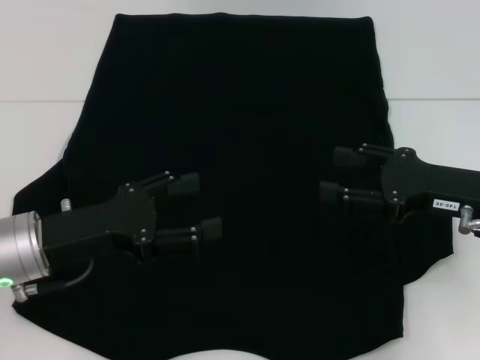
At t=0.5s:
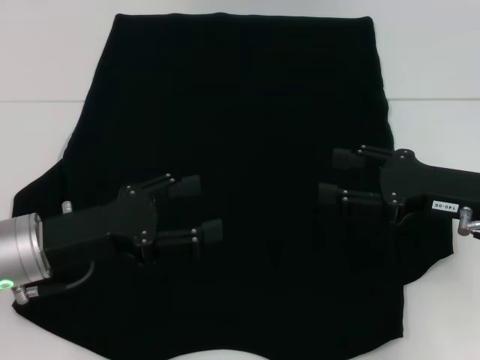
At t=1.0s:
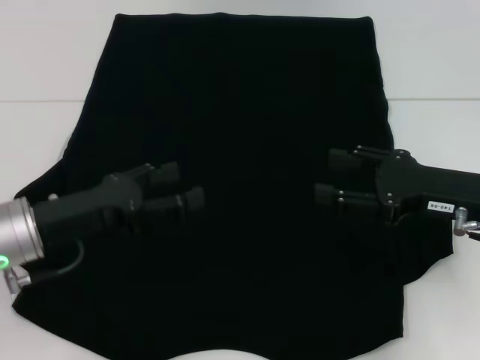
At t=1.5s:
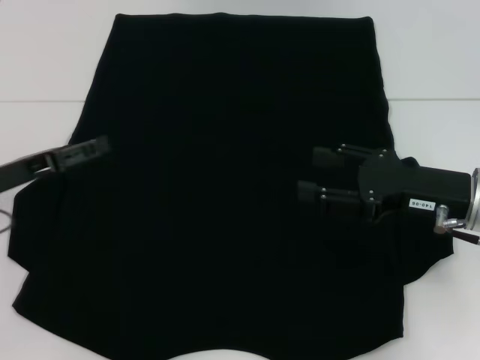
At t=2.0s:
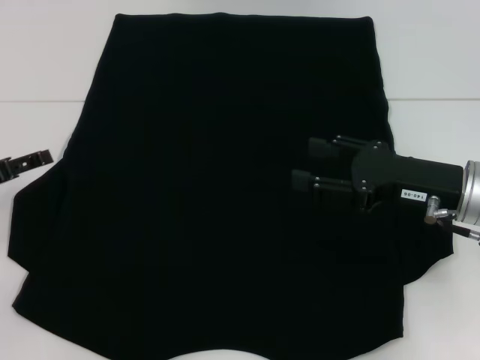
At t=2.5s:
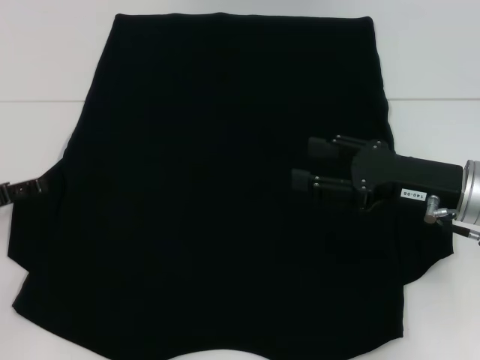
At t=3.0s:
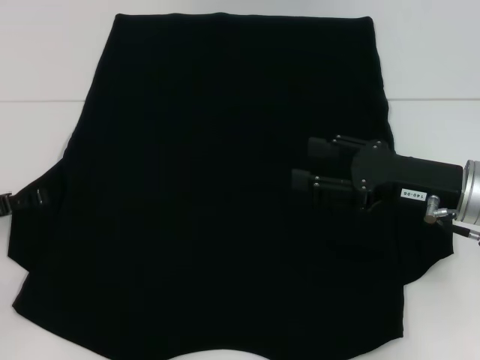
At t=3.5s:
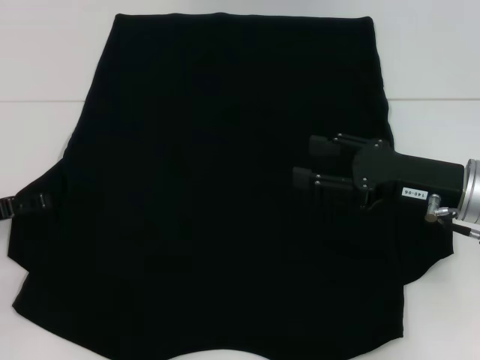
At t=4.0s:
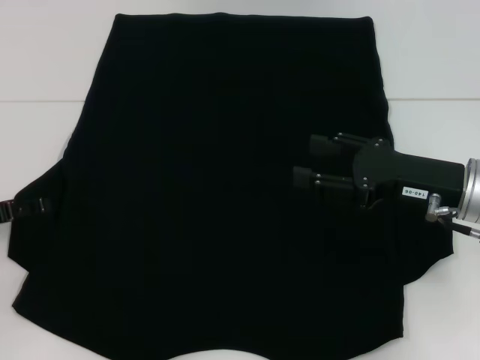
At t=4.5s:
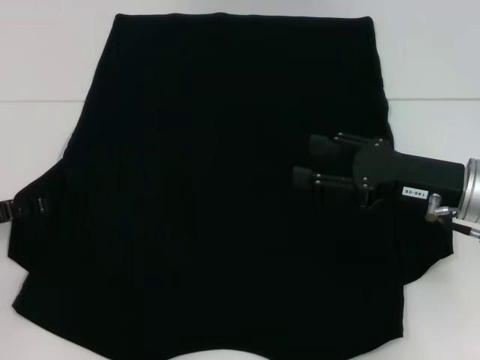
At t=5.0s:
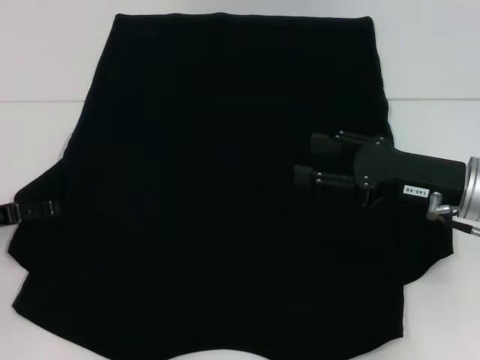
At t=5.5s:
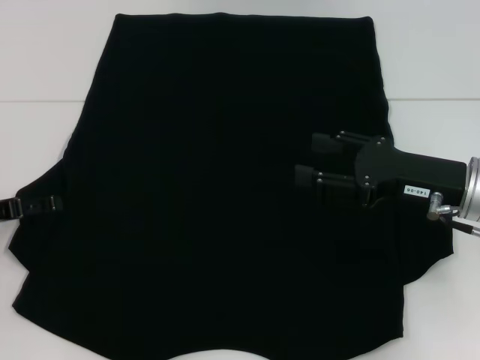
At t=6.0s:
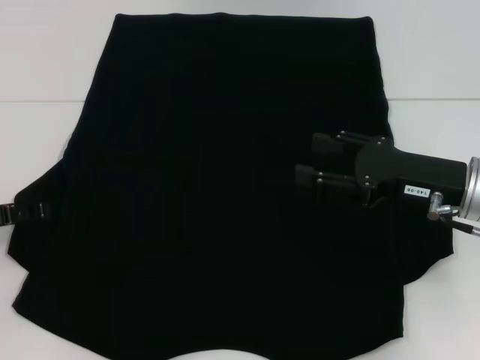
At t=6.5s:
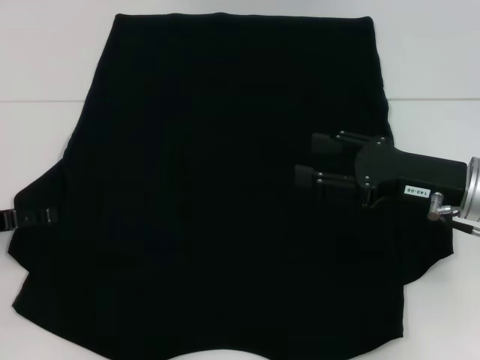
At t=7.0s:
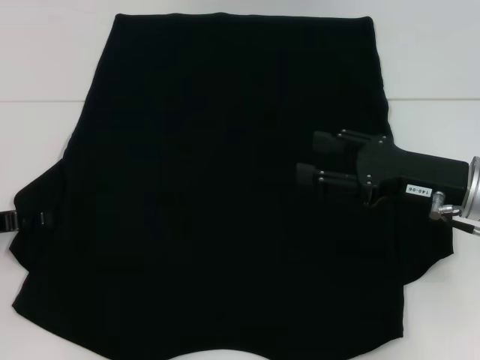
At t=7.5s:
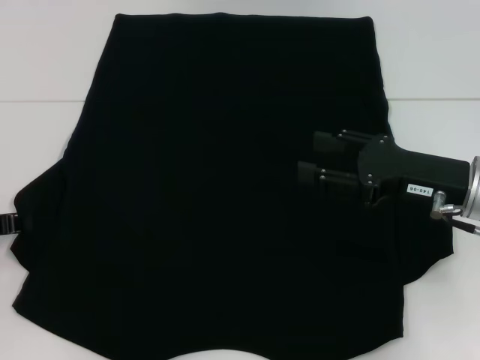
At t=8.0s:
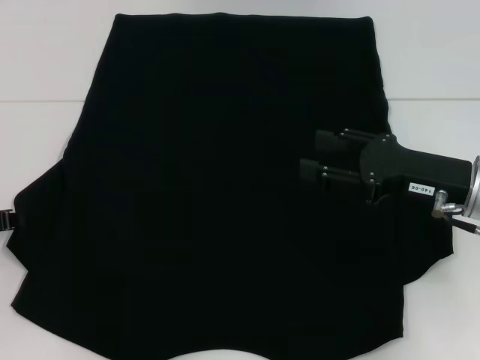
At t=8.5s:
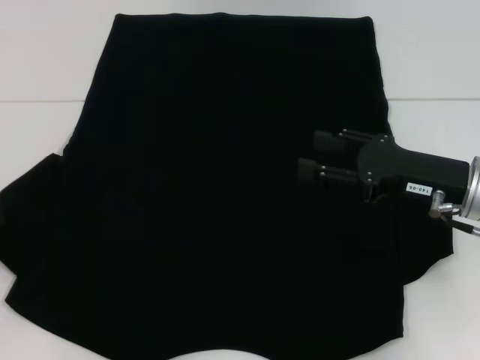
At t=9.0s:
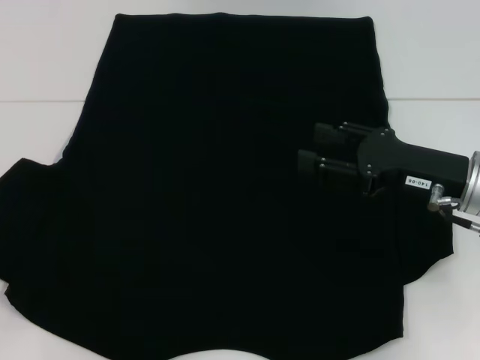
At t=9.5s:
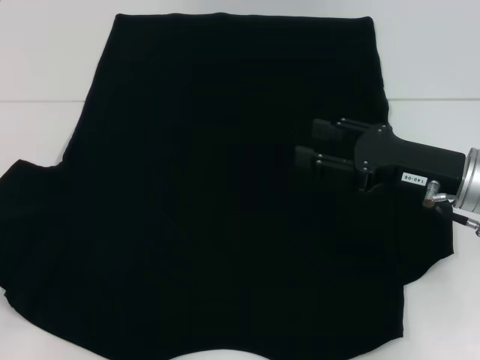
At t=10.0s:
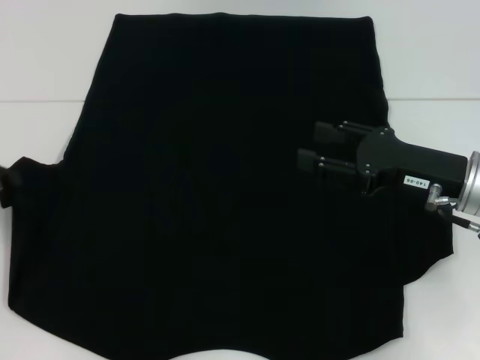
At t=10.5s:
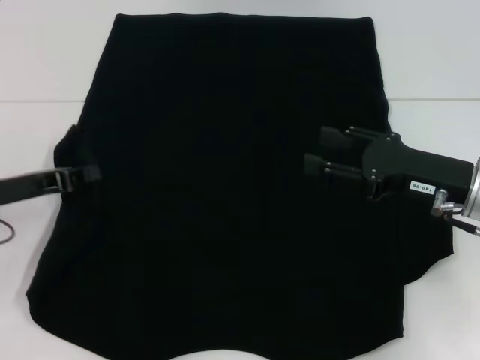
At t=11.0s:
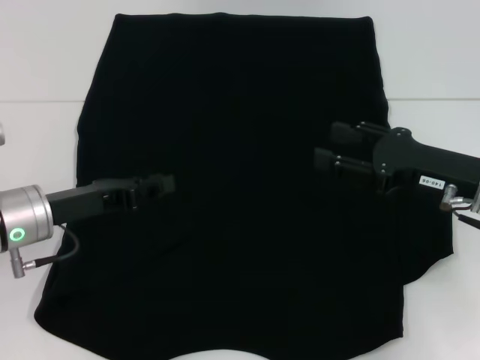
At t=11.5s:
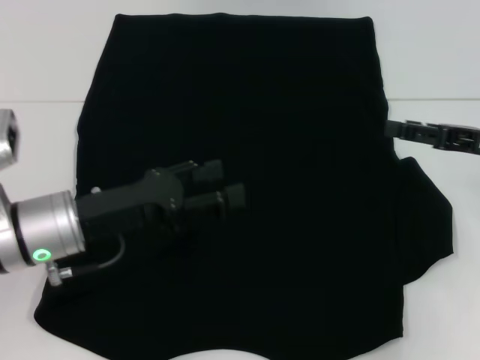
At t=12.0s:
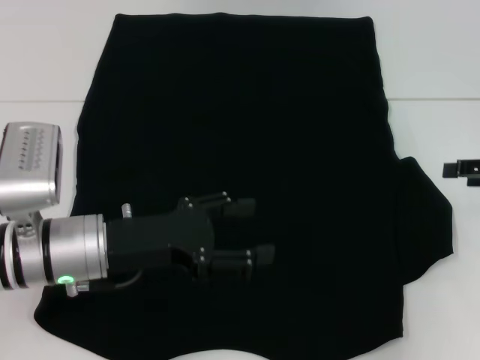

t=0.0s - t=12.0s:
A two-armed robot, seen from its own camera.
t=0.0s - t=2.0s: The left gripper is displaced to the left by about 10 cm.
t=2.0s - t=4.0s: The grippers stay close to where they were, moving slightly.
t=4.0s - t=6.0s: Both grippers stay put.
t=8.0s - t=10.0s: The grippers move only a little.
t=10.0s - t=12.0s: The grippers both shift to the right by about 15 cm. The left gripper opens up.

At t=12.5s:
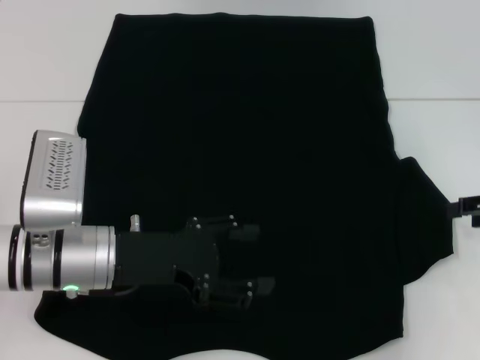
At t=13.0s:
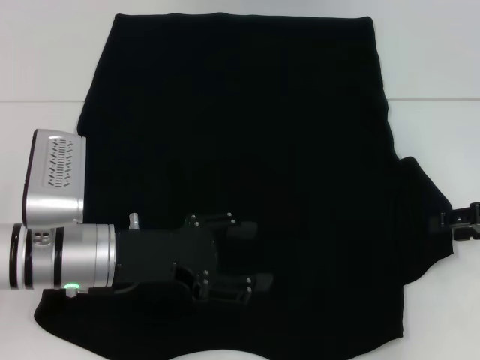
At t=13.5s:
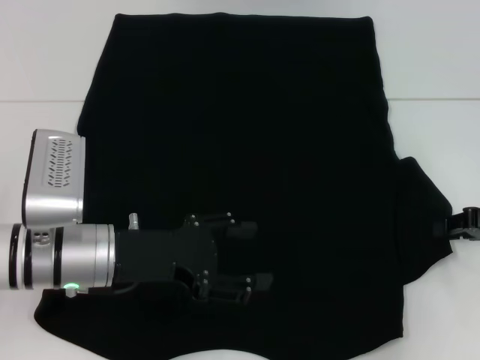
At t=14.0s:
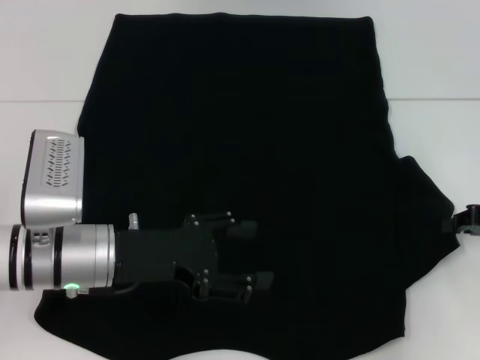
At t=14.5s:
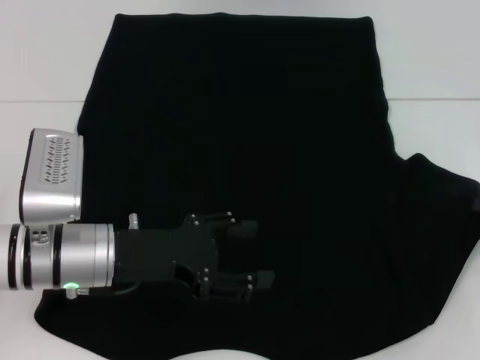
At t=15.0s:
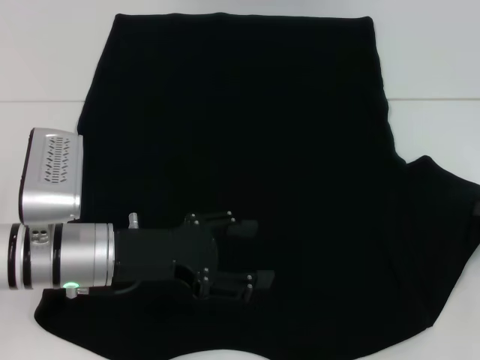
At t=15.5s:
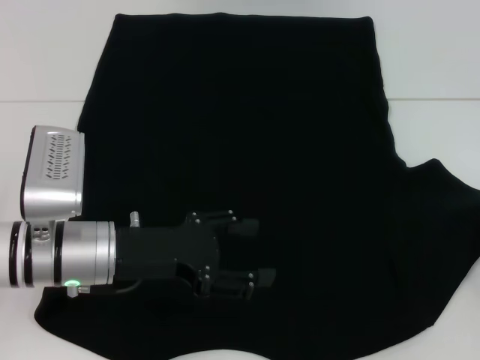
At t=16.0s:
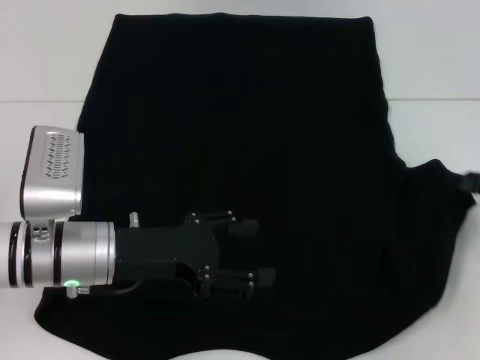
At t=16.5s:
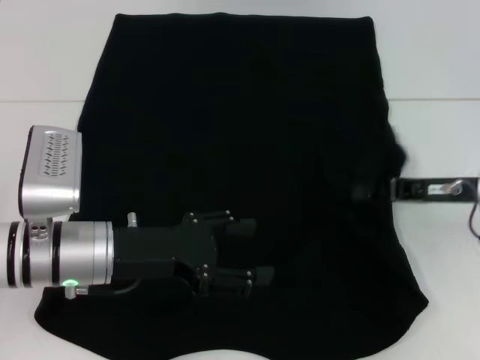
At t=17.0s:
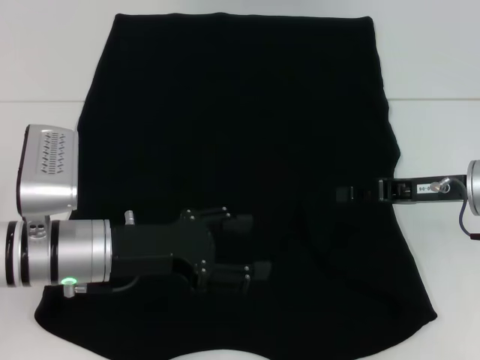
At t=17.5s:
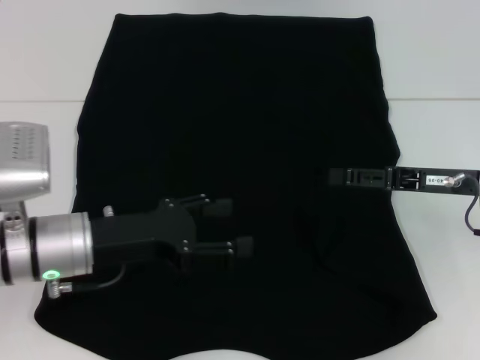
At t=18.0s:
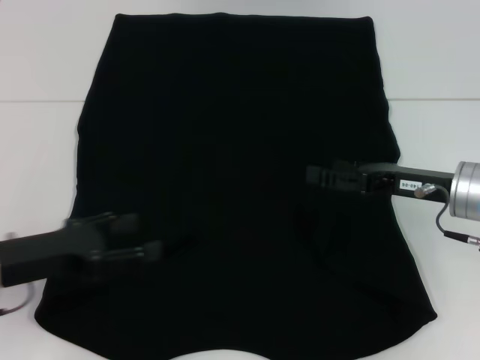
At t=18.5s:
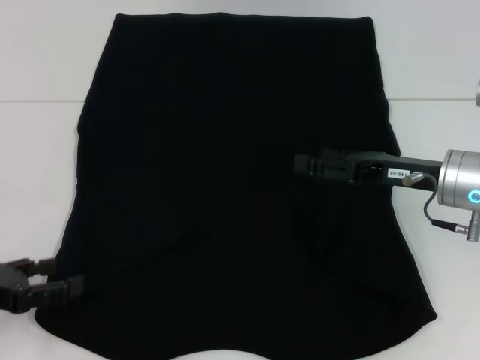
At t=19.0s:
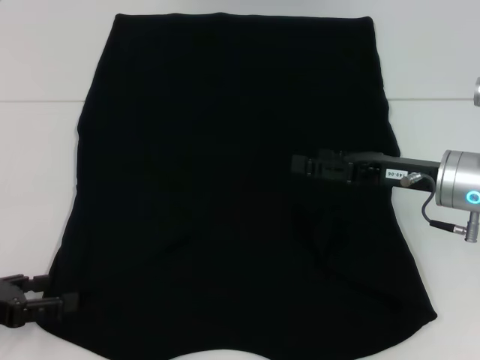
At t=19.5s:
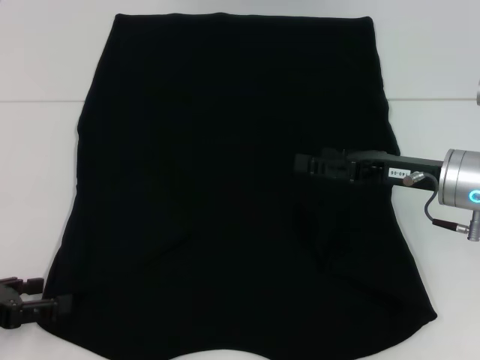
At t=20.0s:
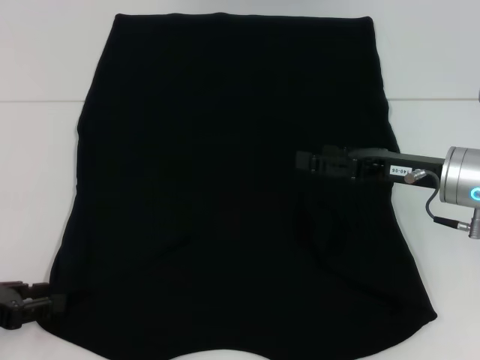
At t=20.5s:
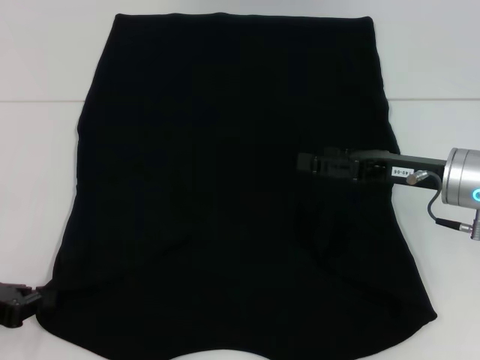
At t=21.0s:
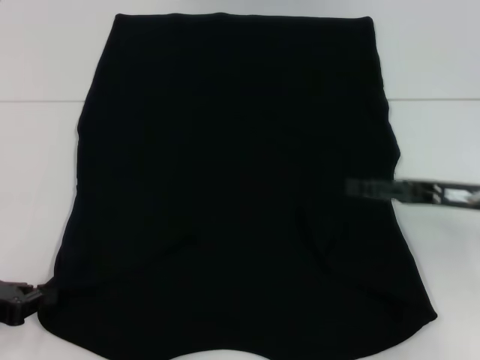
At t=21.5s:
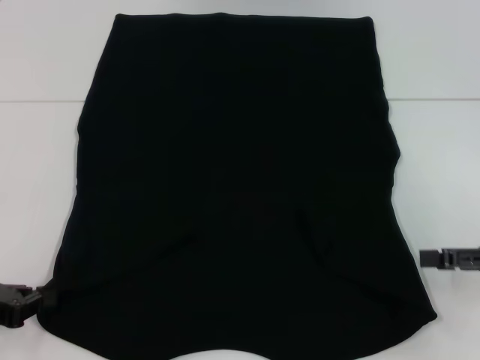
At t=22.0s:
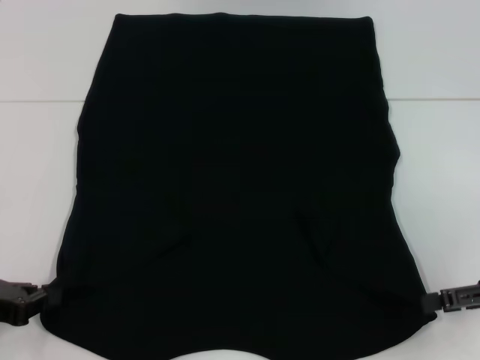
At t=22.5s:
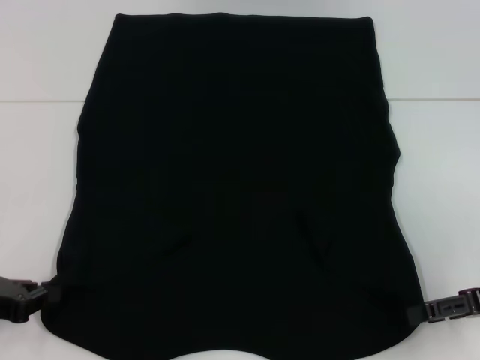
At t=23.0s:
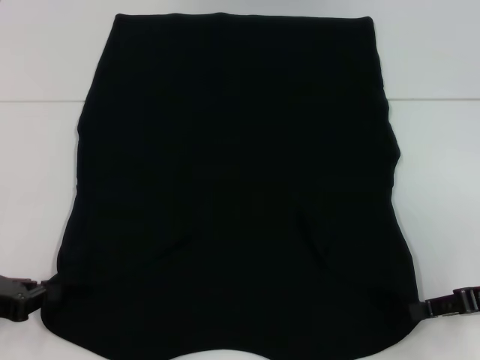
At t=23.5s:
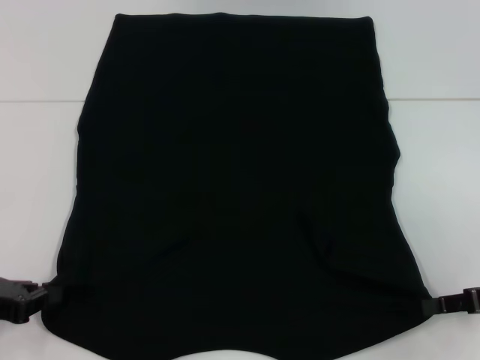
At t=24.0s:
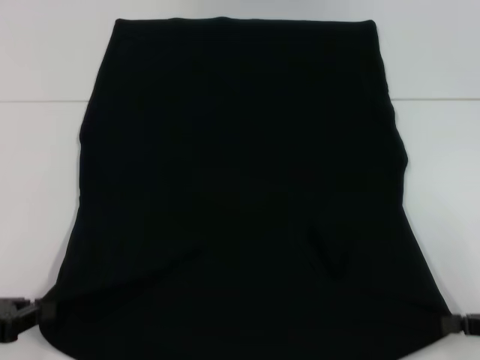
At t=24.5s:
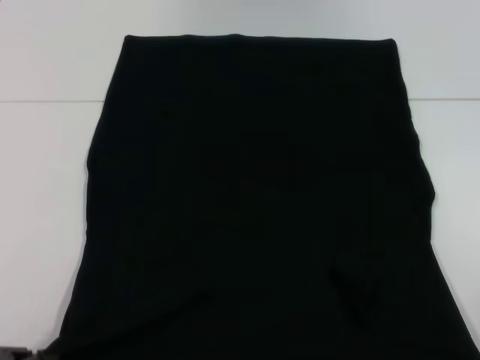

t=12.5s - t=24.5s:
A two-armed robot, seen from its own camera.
Step, t=12.5s - t=17.0s: Fold the bottom right sleeve with your right hand.
Step, t=17.5s - t=24.0s: Grab the bottom left corner with your left hand.
Step, t=17.5s - t=24.0s: Grab the bottom right corner with your right hand.
t=12.5s - t=14.5s: The right gripper closes.
t=14.5s - t=16.5s: The right gripper moves to the left, approximately 10 cm.
t=16.5s - t=18.5s: The right gripper opens its fingers, while the left gripper travels to the left and backward by some 15 cm.
t=18.5s - t=20.5s: The left gripper closes its fingers.
t=20.5s - t=22.5s: The right gripper is displaced to the right and backward by approximately 10 cm.
t=22.5s - t=24.5s: The left gripper goes approximately 5 cm backward. The right gripper is displaced backward and to the right by about 10 cm, and closes its fingers.

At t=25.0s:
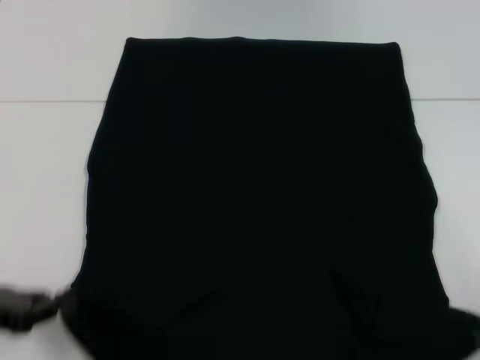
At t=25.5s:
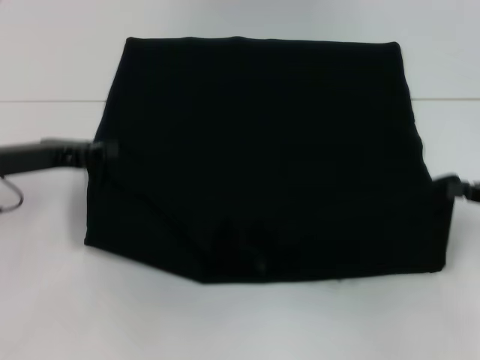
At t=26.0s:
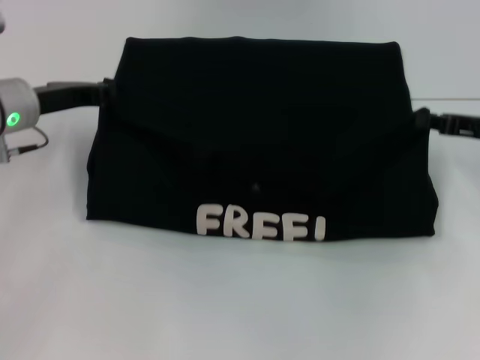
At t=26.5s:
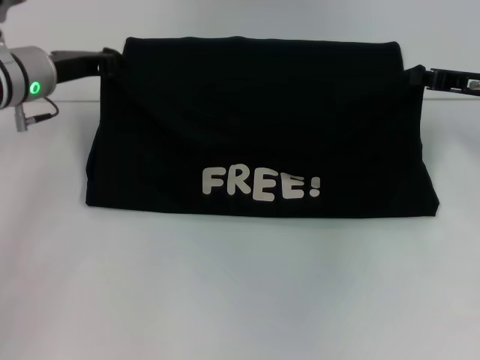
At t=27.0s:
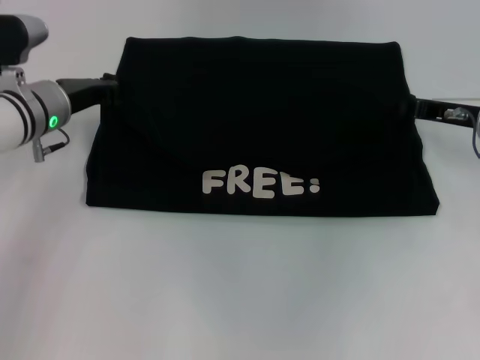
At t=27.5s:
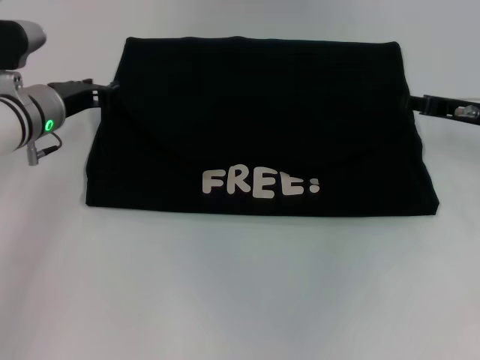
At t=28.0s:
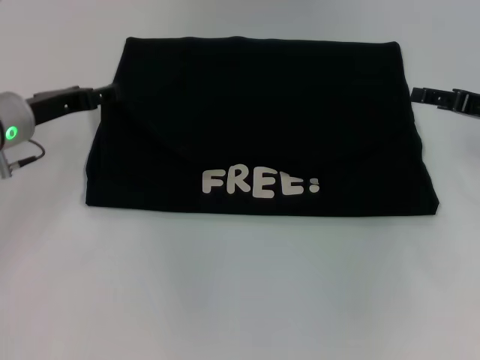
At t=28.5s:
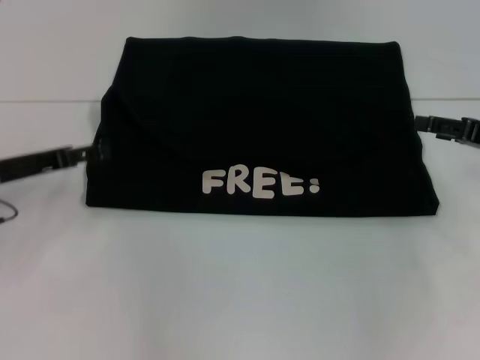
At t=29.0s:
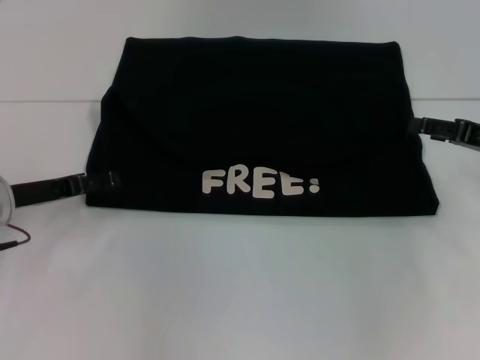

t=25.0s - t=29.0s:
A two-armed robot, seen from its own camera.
Step, t=25.0s - t=27.5s: Fold the clothes with your left hand.
Step, t=25.0s - t=27.5s: Fold the clothes with your right hand.
t=25.0s - t=27.0s: The right gripper moves forward and to the left, approximately 25 cm. Meanwhile the left gripper goes approximately 25 cm forward and to the right.
t=27.0s - t=29.0s: The right gripper moves backward, some 5 cm, and opens, while the left gripper moves backward and to the left, about 10 cm, and opens.
